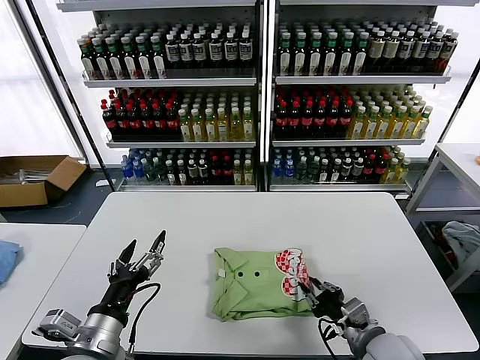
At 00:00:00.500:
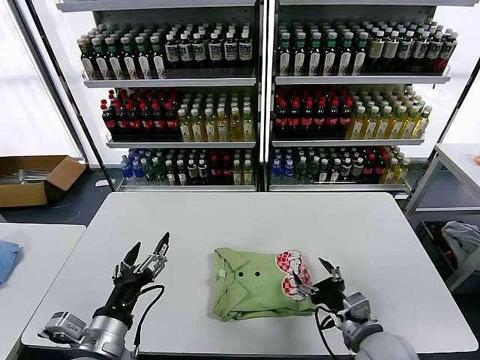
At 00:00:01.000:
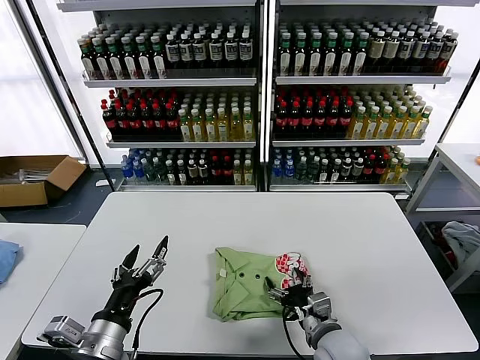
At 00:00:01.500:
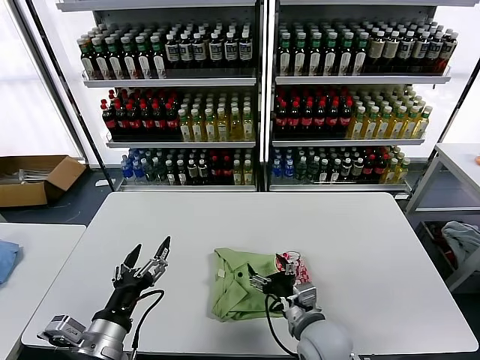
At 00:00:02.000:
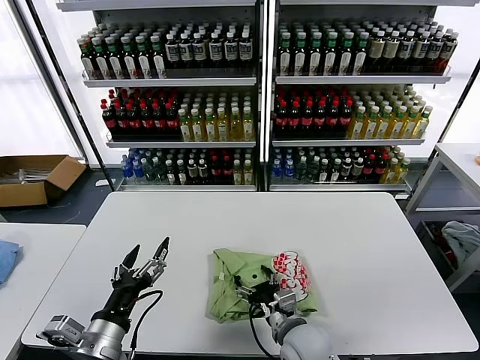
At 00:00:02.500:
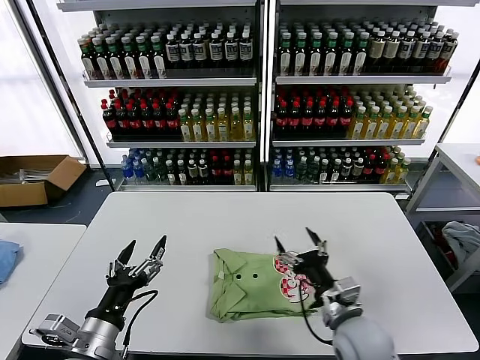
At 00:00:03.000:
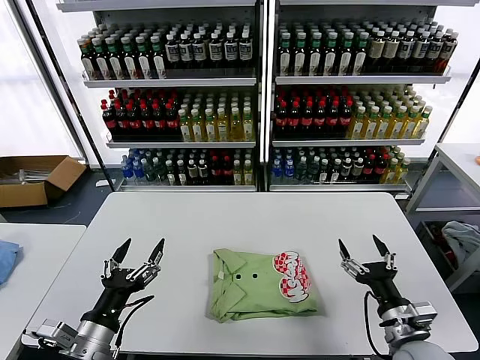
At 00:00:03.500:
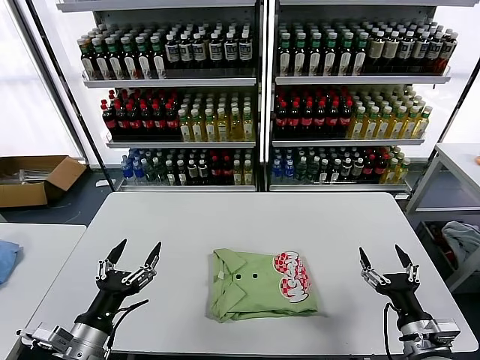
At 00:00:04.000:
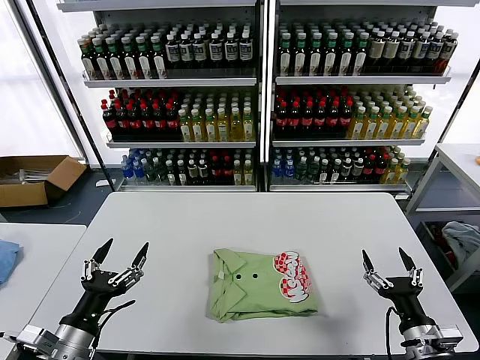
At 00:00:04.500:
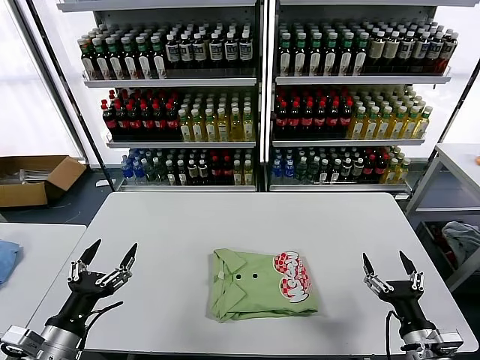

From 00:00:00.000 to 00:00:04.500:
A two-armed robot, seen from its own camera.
Task of the whole recording: fold and organize the clothes.
Step, from 00:00:00.000 to 00:00:02.000: Drag the clothes to the center of the table.
From 00:00:00.000 to 00:00:02.000: The right gripper goes roughly 15 cm to the left, and opens.
From 00:00:02.000 to 00:00:04.500: The right gripper moves to the right, roughly 25 cm. The left gripper travels to the left by about 10 cm.

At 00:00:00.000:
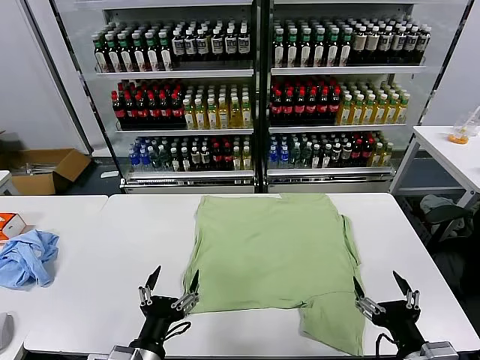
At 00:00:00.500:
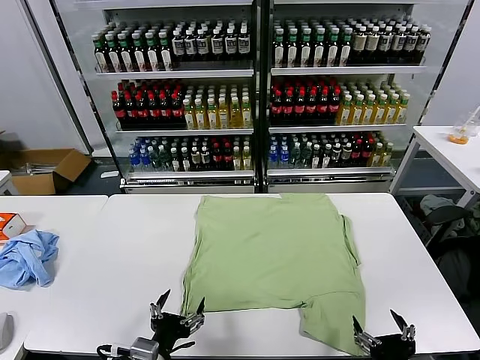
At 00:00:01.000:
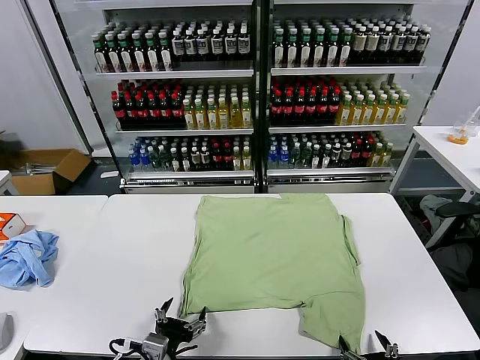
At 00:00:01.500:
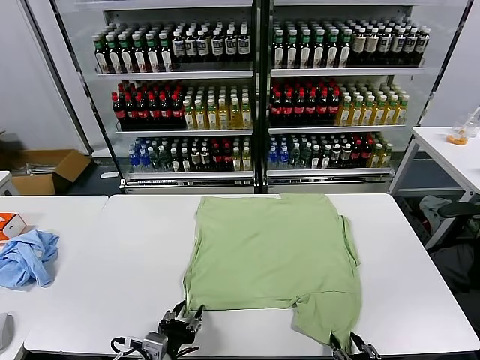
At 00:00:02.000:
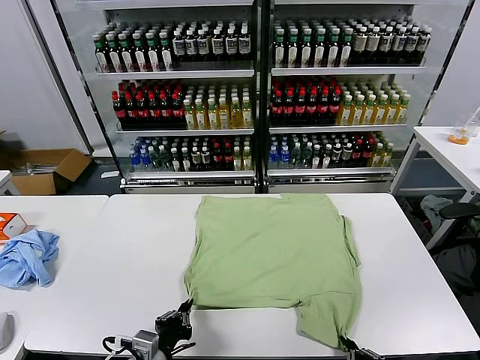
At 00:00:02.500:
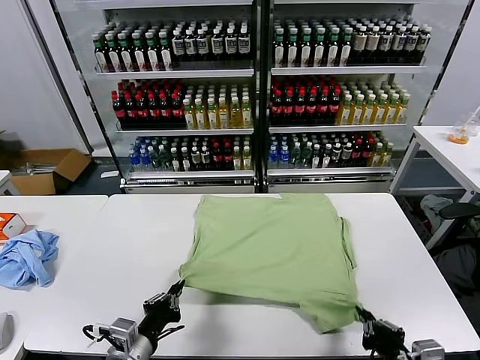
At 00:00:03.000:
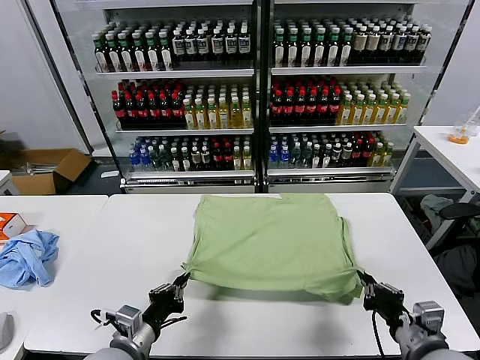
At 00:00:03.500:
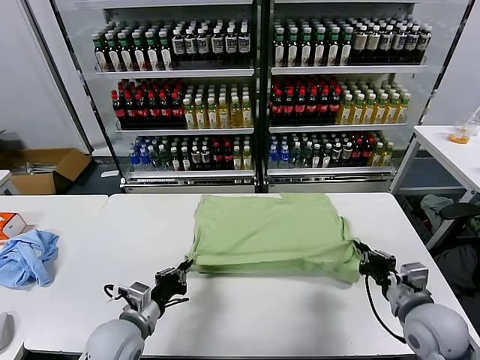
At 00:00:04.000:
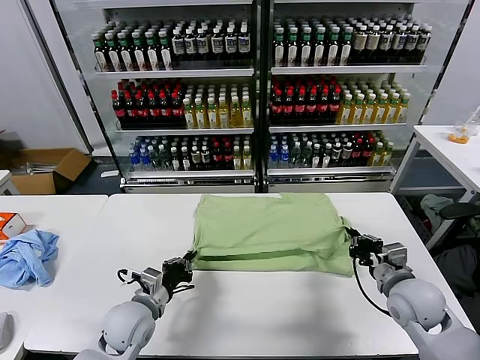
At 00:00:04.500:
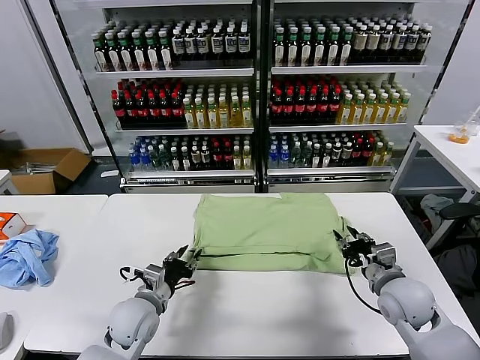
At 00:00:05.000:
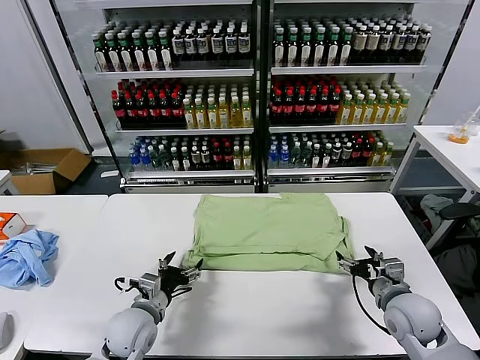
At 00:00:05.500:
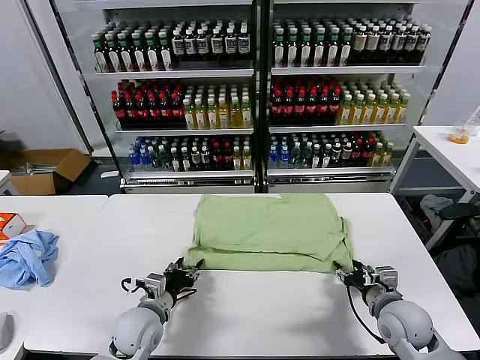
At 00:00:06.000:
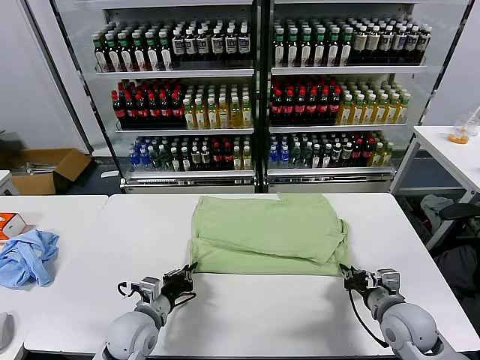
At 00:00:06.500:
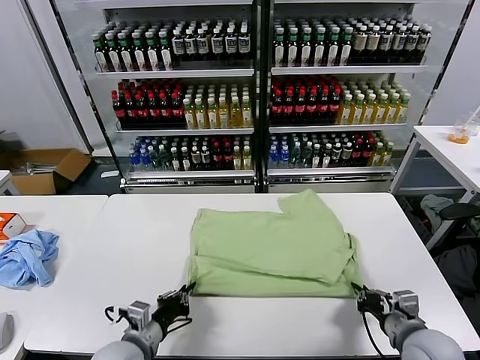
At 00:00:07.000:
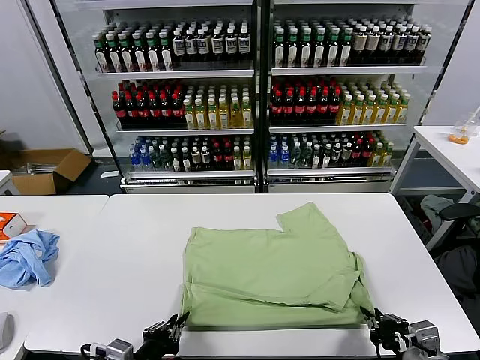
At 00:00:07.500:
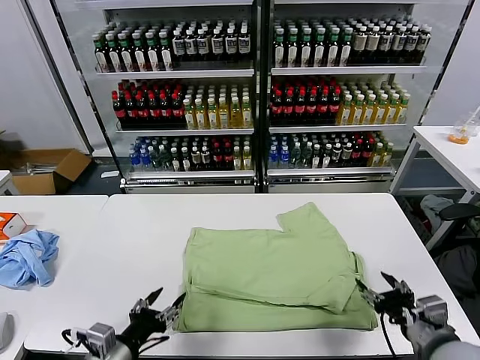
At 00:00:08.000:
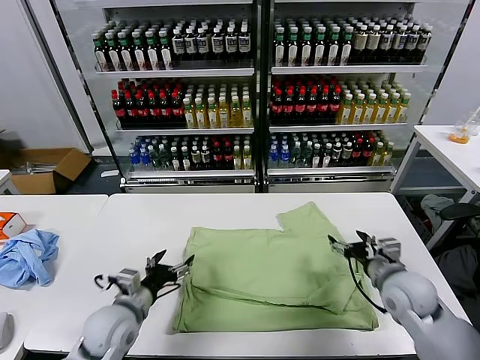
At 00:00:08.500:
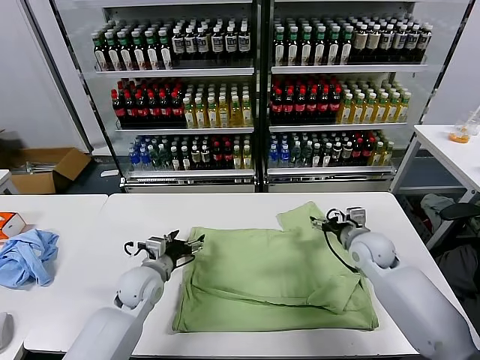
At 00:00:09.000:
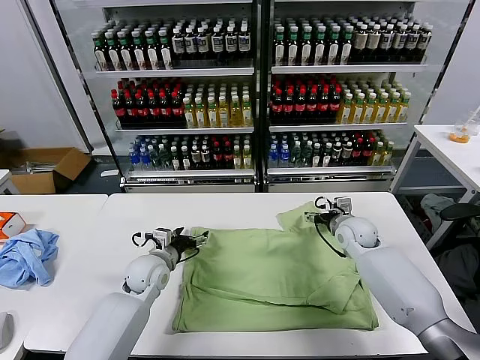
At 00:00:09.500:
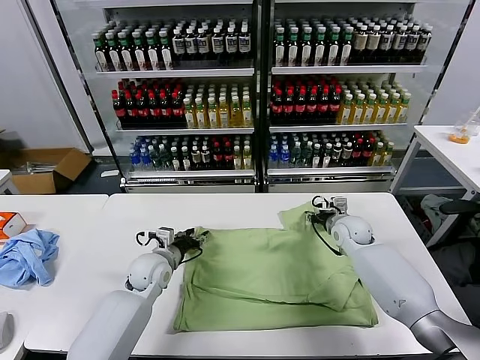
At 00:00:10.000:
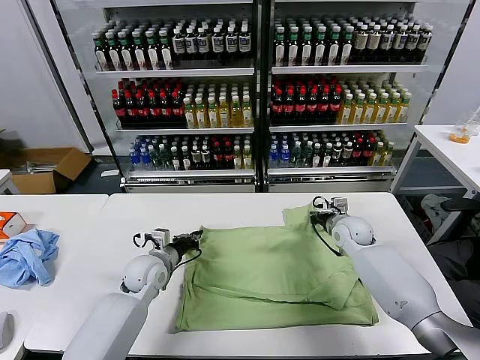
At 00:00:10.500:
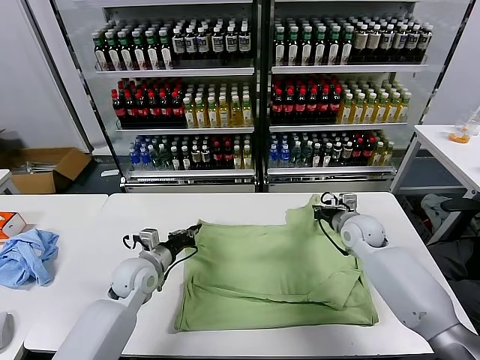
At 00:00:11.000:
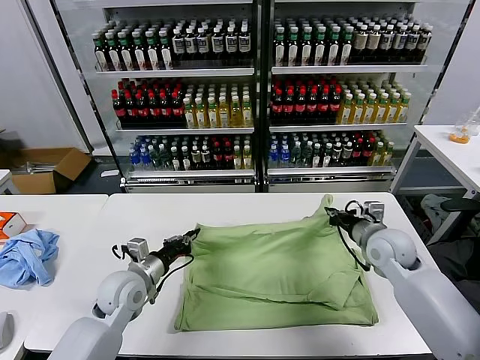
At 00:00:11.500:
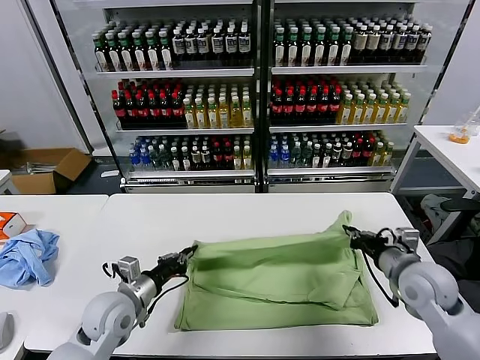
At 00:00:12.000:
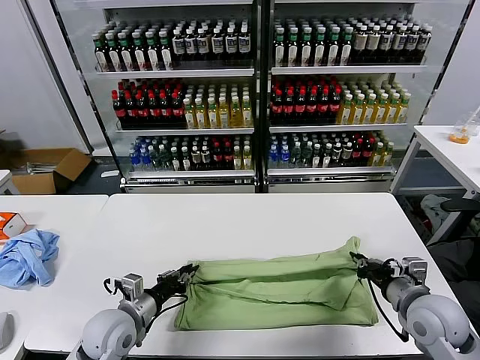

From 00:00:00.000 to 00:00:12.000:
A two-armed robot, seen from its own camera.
Task of the whole recording: fold and organize the clothes.
Step, from 00:00:00.000 to 00:00:01.500: use both grippers simultaneously to clamp the lower edge of the clothing fabric.
Step, from 00:00:02.000 to 00:00:04.500: use both grippers to drag the lower edge of the fabric forward and fold it over the upper edge.
Step, from 00:00:05.000 to 00:00:07.000: Drag the clothes downward with both gripper.
Step, from 00:00:07.500 to 00:00:09.500: use both grippers simultaneously to clamp the upper edge of the clothing fabric.
From 00:00:02.000 to 00:00:04.000: The left gripper shifts about 15 cm forward; the right gripper moves forward, roughly 20 cm.
From 00:00:04.000 to 00:00:06.000: The right gripper goes some 5 cm backward, and opens, then closes once more. The left gripper opens, then closes again.
From 00:00:06.000 to 00:00:08.000: The right gripper shifts roughly 10 cm forward, and opens up, while the left gripper moves about 15 cm backward and comes back, and opens.
From 00:00:08.000 to 00:00:10.000: Both grippers travel together forward, about 15 cm. The left gripper closes. Meanwhile the right gripper closes up.
From 00:00:10.000 to 00:00:12.000: The right gripper heads backward, covering about 25 cm; the left gripper goes about 15 cm backward.

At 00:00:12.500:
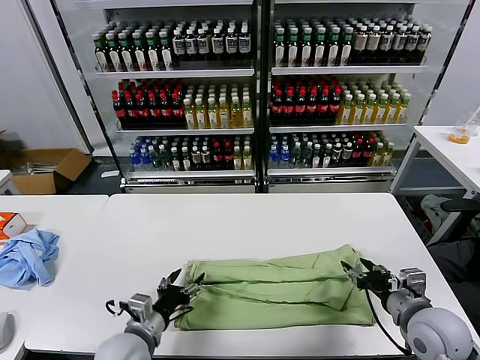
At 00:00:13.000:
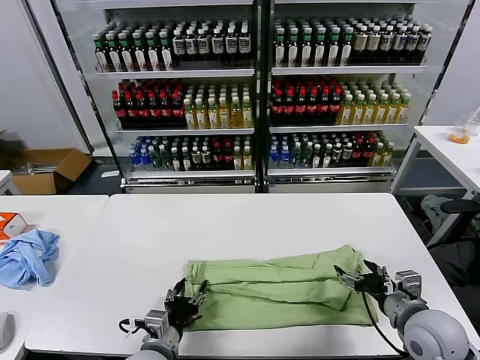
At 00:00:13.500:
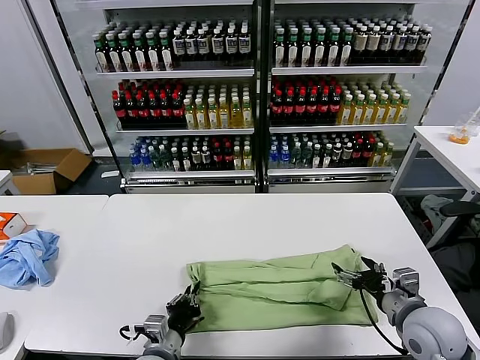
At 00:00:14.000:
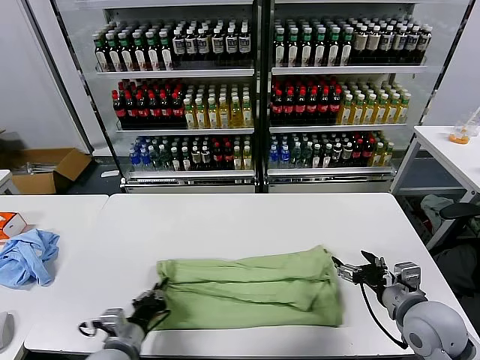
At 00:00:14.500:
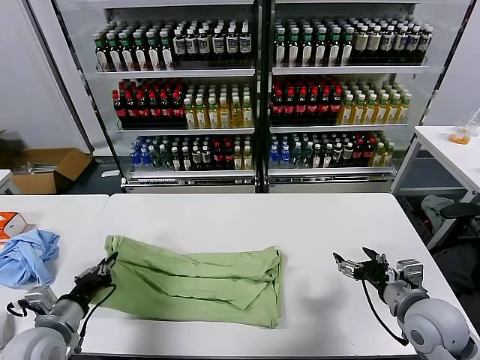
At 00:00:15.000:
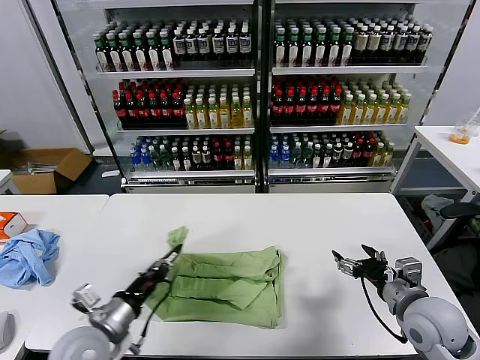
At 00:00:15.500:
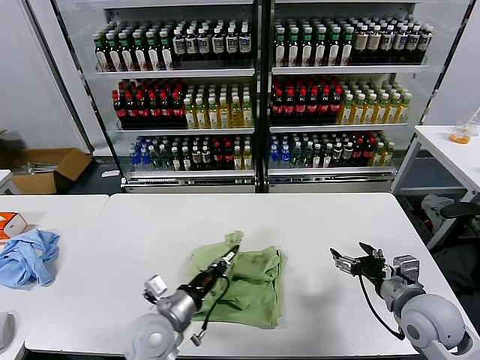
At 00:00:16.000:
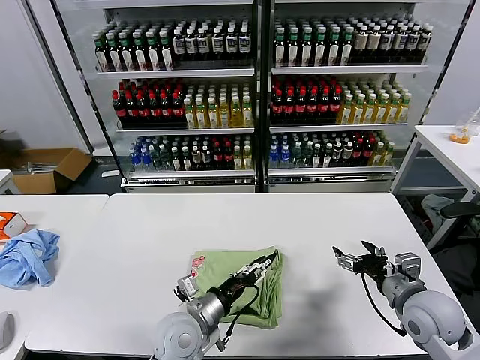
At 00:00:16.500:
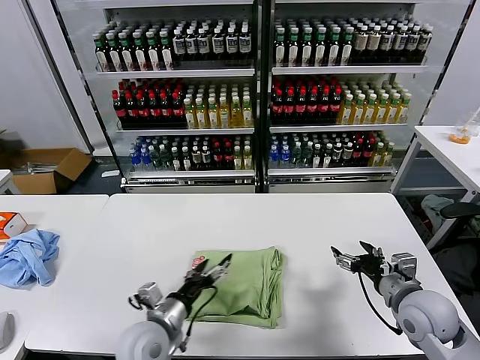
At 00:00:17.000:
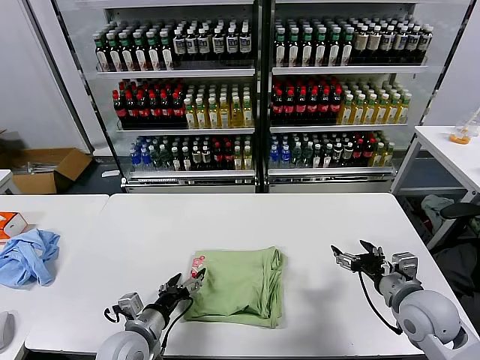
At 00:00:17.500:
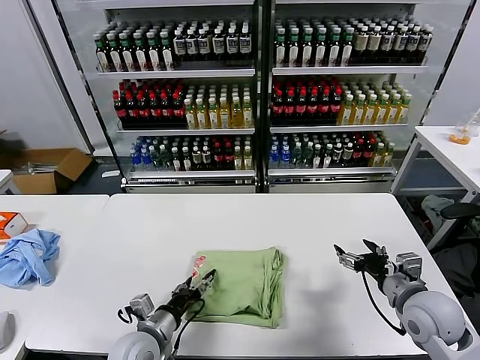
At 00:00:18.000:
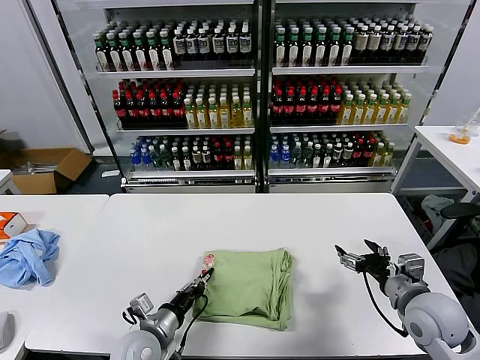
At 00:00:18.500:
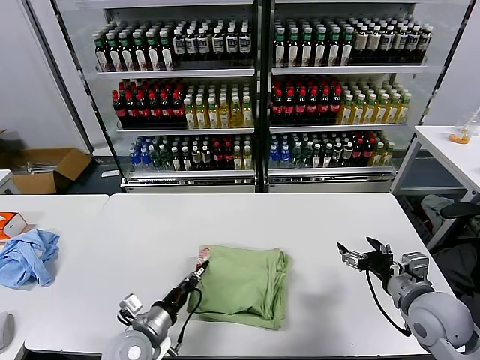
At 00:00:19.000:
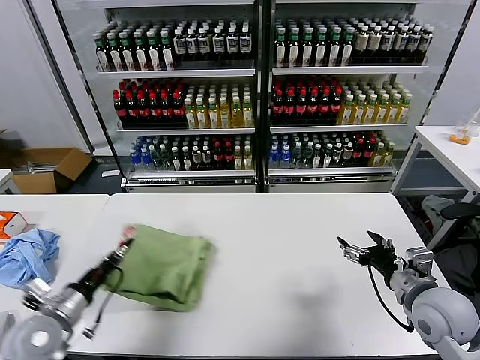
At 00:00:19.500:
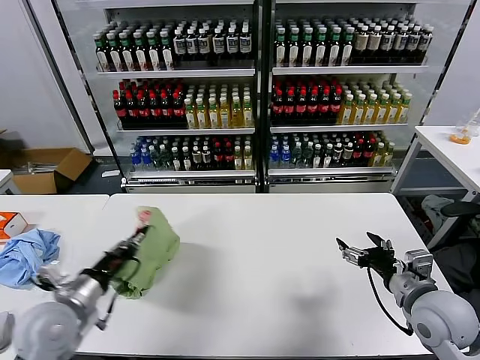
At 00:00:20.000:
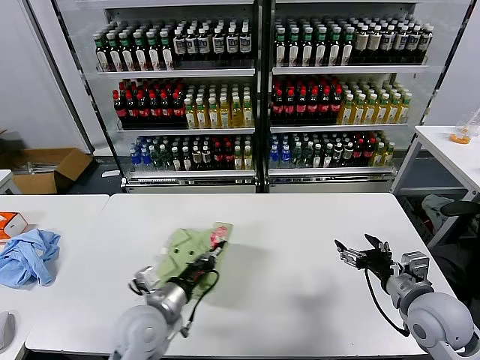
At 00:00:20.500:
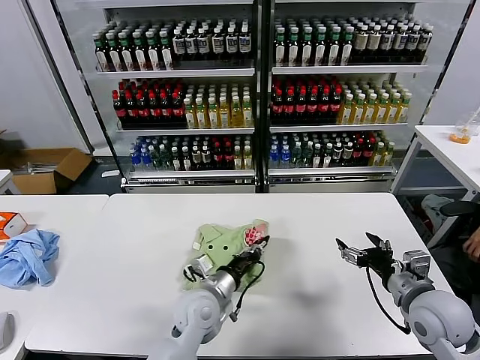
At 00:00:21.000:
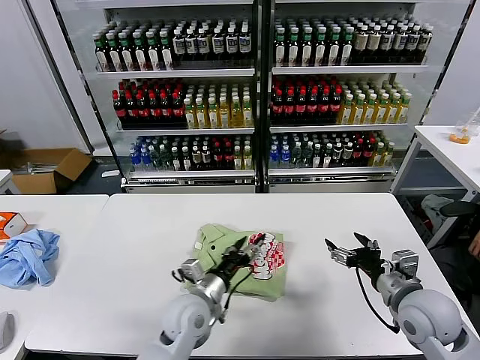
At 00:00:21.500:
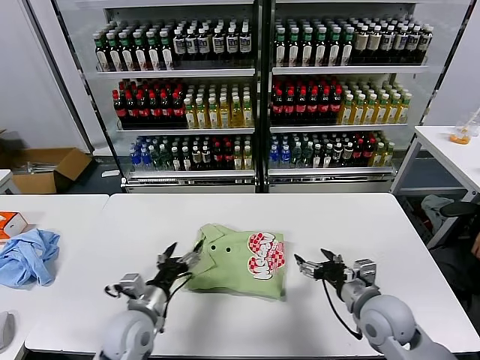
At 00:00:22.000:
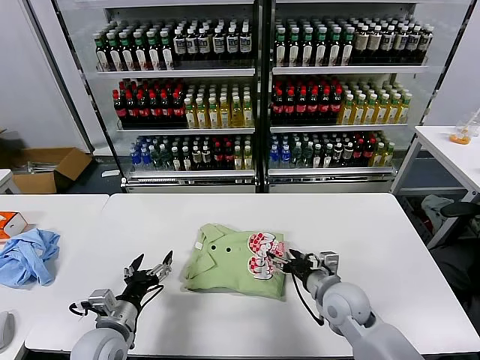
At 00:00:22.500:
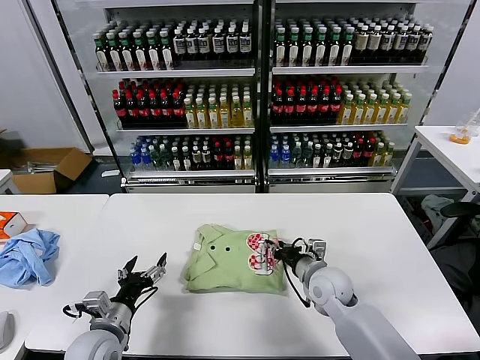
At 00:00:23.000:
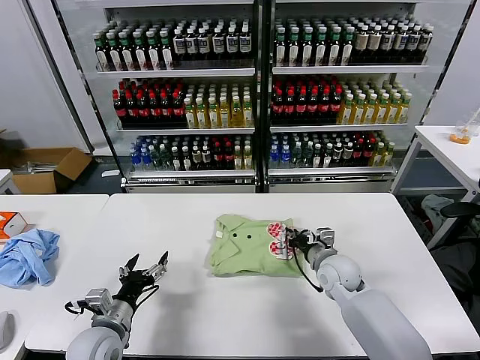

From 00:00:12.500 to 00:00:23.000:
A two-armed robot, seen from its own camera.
Task of the whole recording: fold and organize the clothes.
Step, from 00:00:13.000 to 00:00:13.500: use the left gripper to clamp the left edge of the fabric.
Step, from 00:00:14.000 to 00:00:16.000: use the left gripper to drag the left edge of the fabric to the left and folds it over the right edge.
Step, from 00:00:16.500 to 00:00:20.500: Flip the folded clothes over with left gripper.
From 00:00:12.500 to 00:00:14.500: The left gripper goes some 15 cm to the left, and closes its fingers.
From 00:00:14.500 to 00:00:16.500: The left gripper moves to the right, roughly 20 cm, and opens up.
From 00:00:16.500 to 00:00:19.000: The left gripper heads to the left, covering some 20 cm, and closes its fingers.
From 00:00:19.000 to 00:00:21.000: The left gripper is displaced to the right by roughly 25 cm, and opens.
From 00:00:21.000 to 00:00:23.000: The right gripper is displaced forward, to the left and downward by some 20 cm, and closes. Meanwhile the left gripper heads to the left, covering about 20 cm.
